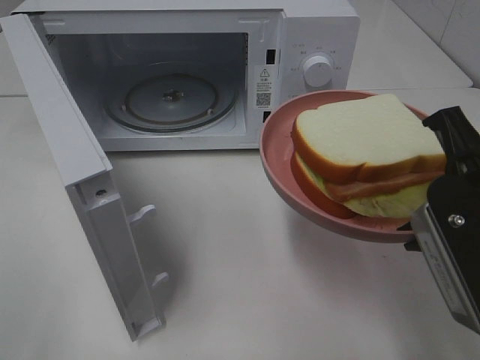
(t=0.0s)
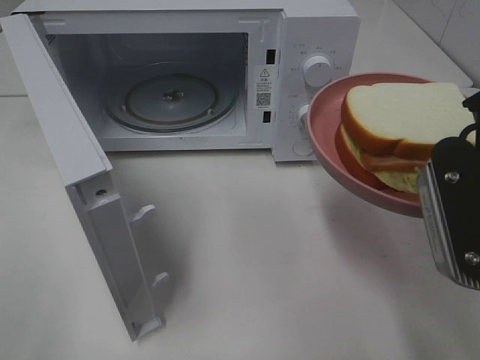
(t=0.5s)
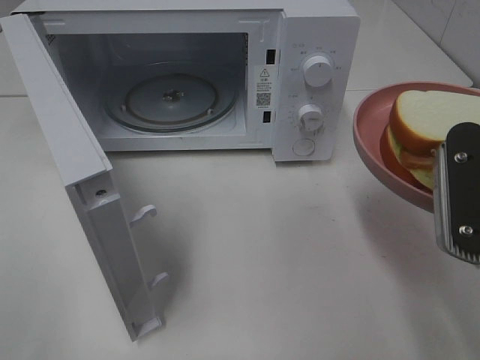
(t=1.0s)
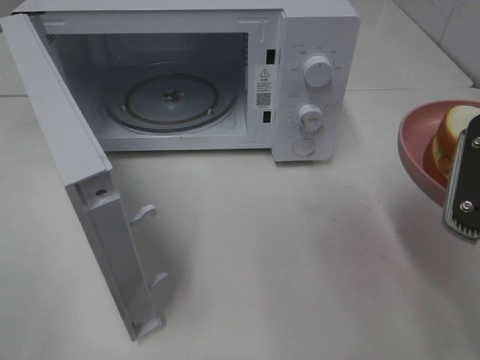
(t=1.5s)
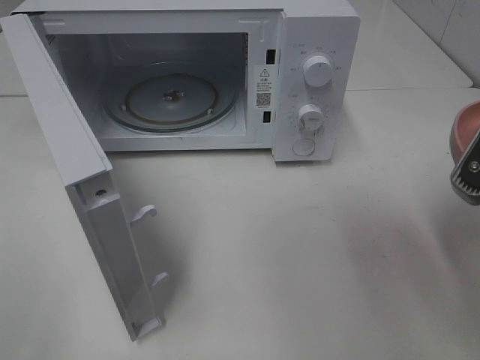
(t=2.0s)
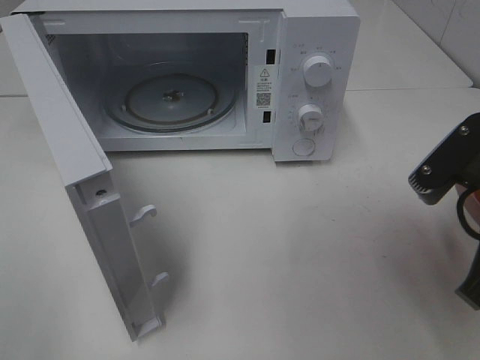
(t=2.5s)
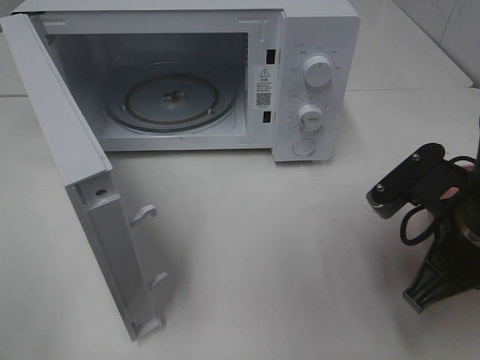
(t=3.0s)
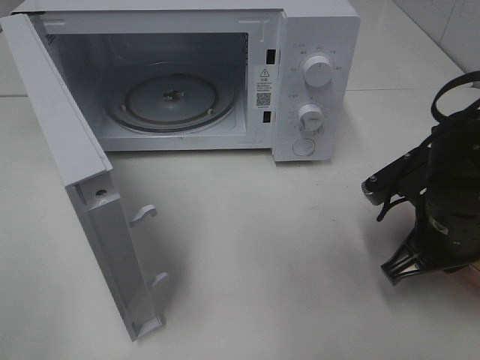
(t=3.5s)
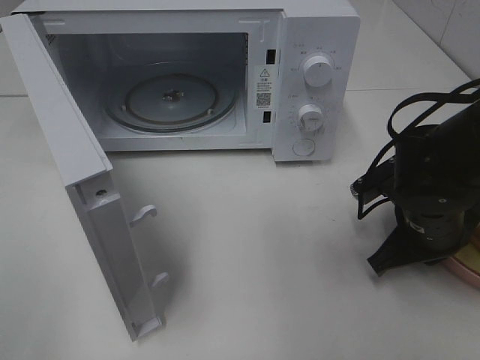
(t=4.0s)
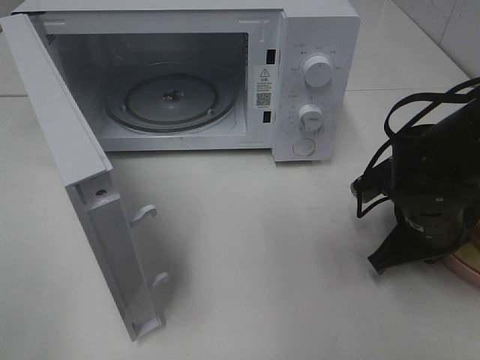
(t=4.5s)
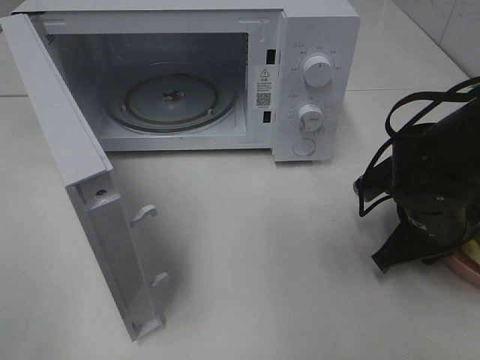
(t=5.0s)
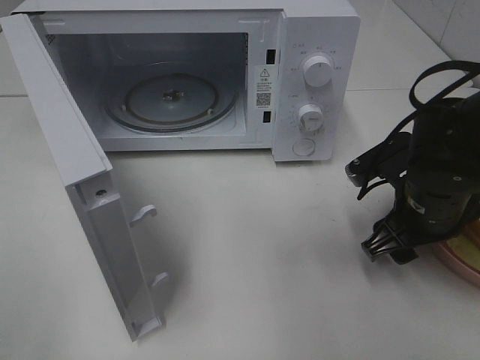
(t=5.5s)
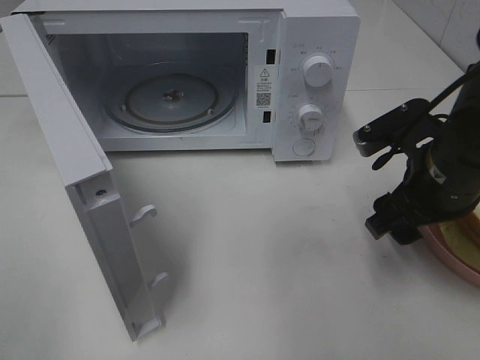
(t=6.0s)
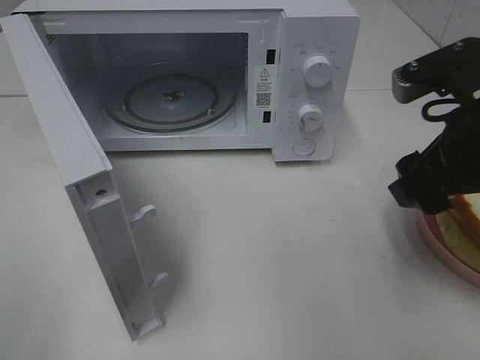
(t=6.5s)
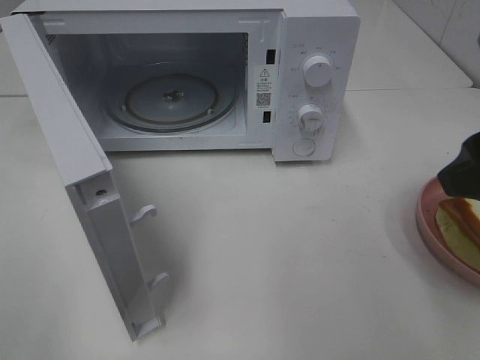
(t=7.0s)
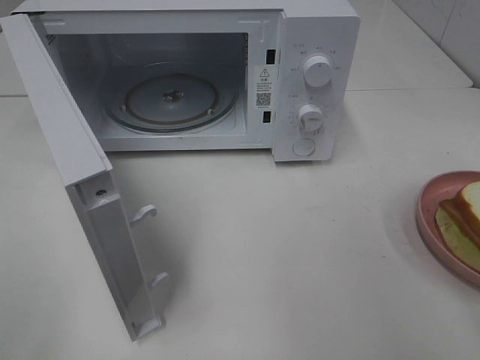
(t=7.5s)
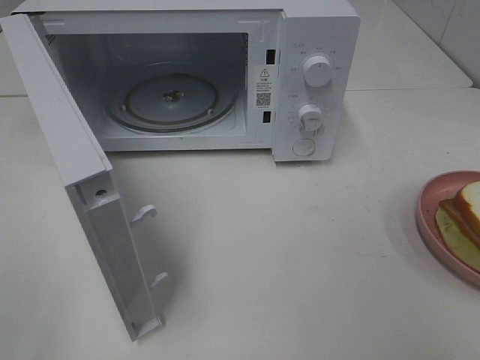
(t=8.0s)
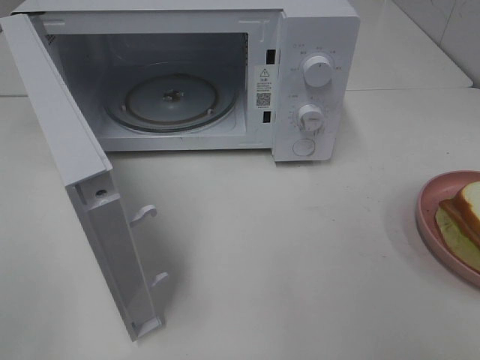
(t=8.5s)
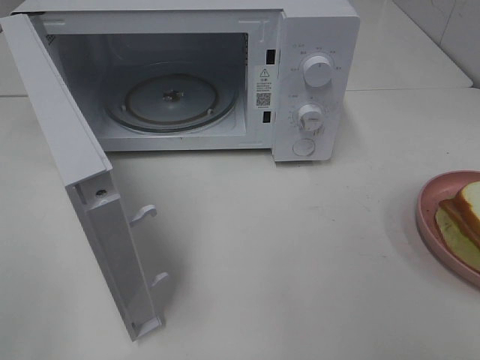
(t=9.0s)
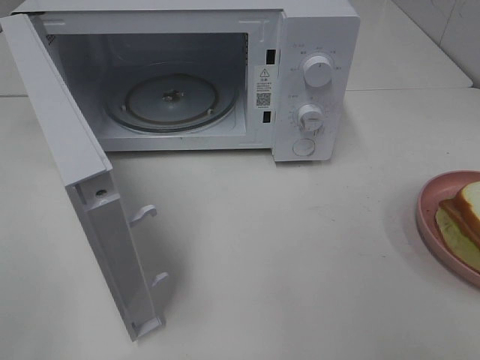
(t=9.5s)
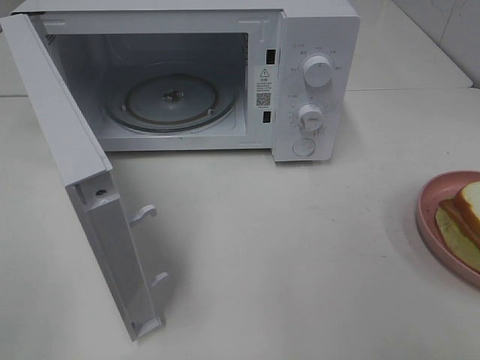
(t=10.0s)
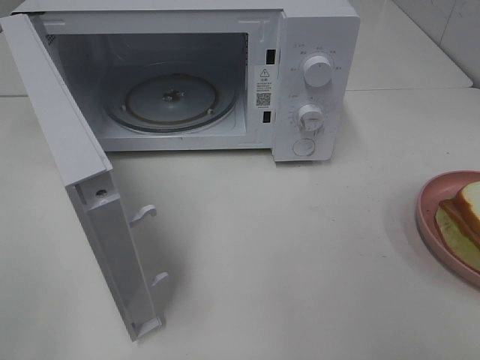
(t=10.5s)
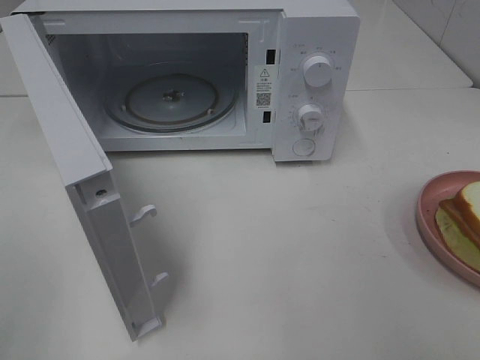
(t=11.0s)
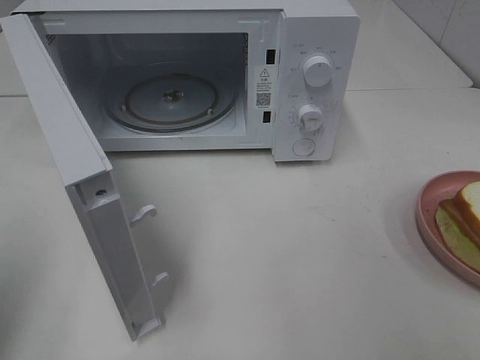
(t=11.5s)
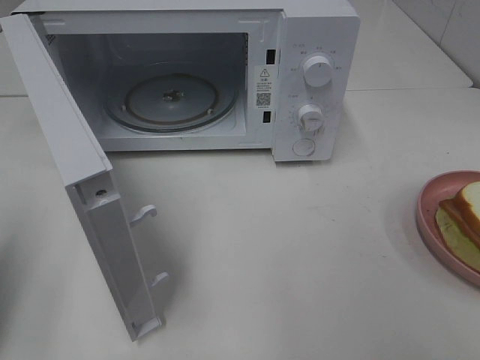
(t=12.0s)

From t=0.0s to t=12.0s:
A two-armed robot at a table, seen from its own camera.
Task of the whole recording: Heat Sandwich.
Step, from t=0.0s to t=8.5s: Right hand: place the plate on the table.
From t=2.0s to t=4.0s: The right gripper is displaced downward and forward by about 20 cm.
From t=4.0s to t=6.0s: The right gripper travels upward by about 10 cm, and opens up.
From t=6.0s to t=8.0s: The right gripper moves backward, upward and to the right, approximately 25 cm.
From t=10.0s to t=12.0s: The left gripper heads forward, covering approximately 15 cm, and closes its fingers.

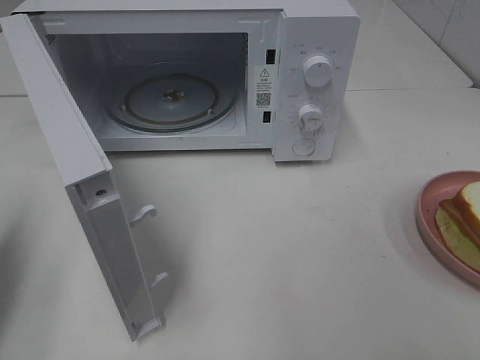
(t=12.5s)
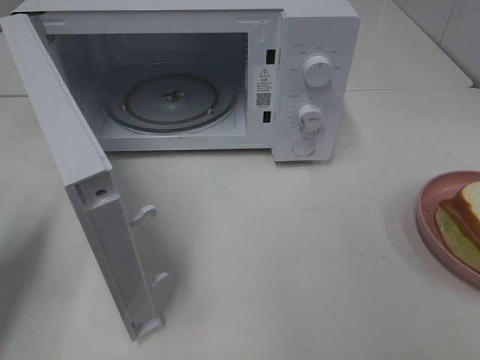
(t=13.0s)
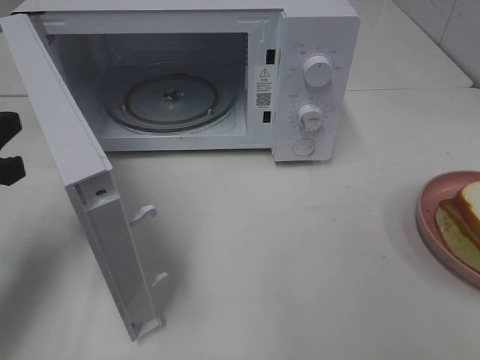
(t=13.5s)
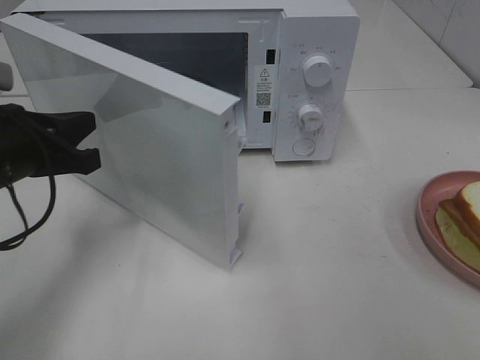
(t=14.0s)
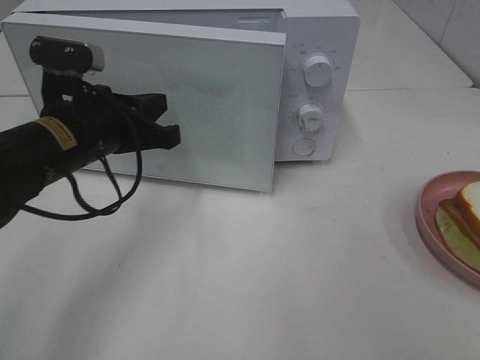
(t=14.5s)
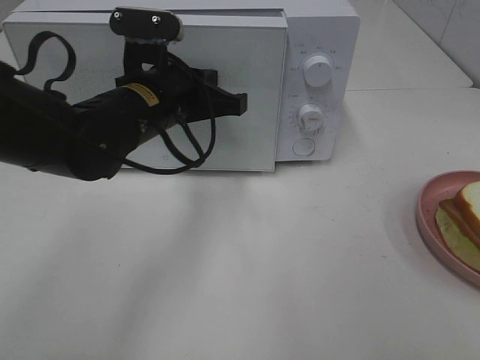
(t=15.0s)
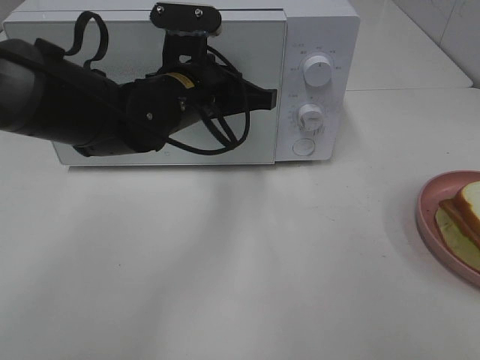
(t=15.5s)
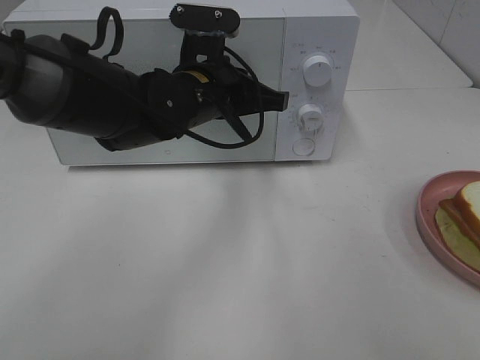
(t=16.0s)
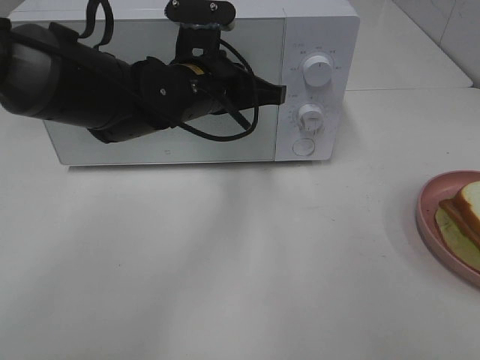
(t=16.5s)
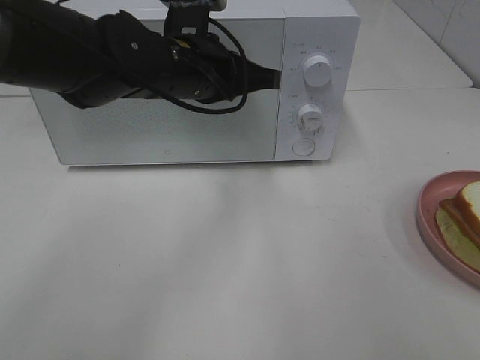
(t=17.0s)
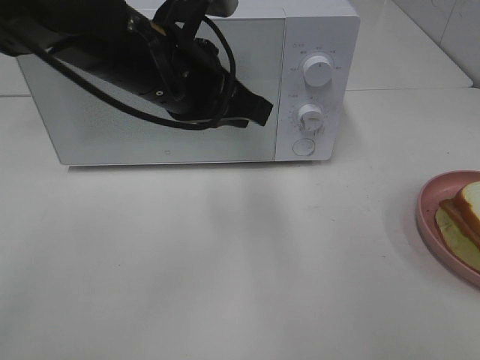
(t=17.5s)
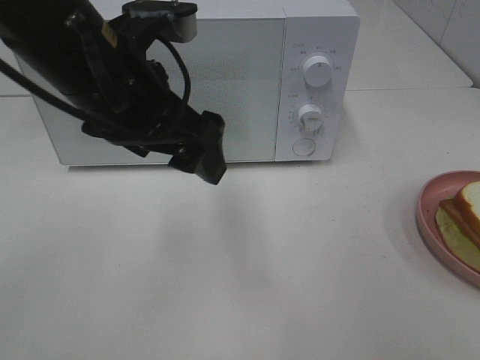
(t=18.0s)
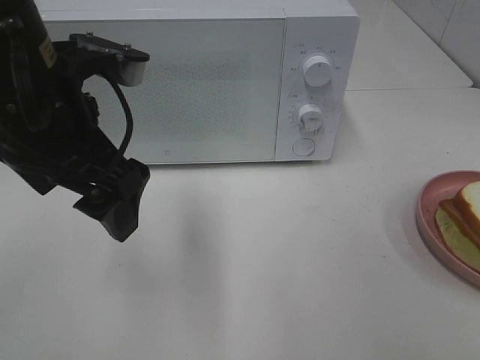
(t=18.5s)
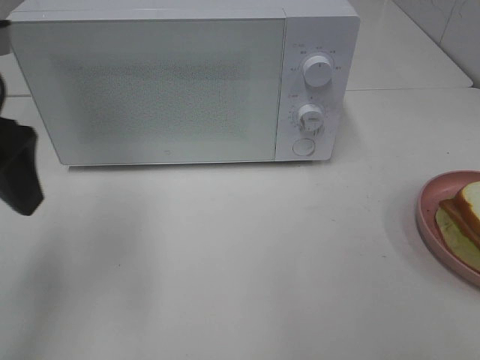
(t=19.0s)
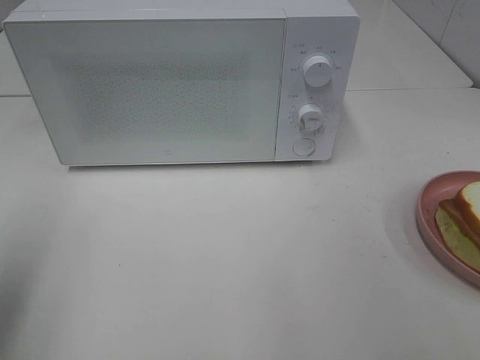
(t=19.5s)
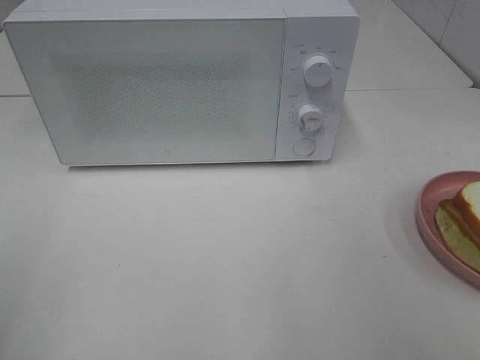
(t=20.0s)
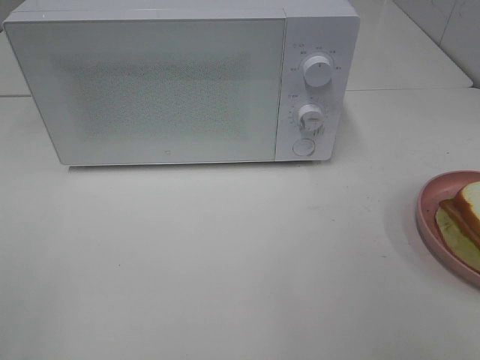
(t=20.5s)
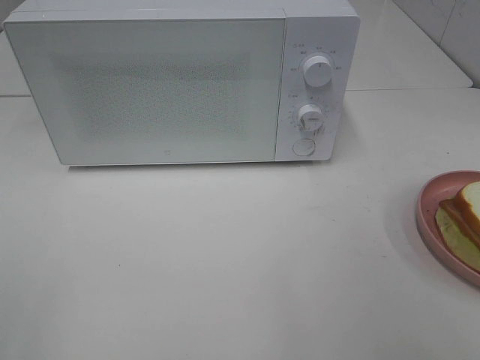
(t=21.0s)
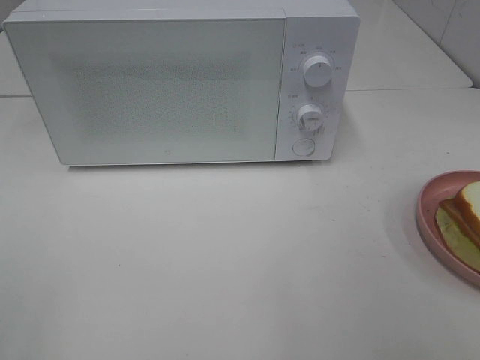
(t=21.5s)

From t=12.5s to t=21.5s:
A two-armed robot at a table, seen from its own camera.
Task of the whole recording: Heat Sandwich.
Step, from t=12.5s to t=16.5s: Left hand: close the microwave door.
From t=12.5s to t=14.5s: The left gripper is displaced to the right and forward by about 20 cm.
From t=14.5s to t=17.0s: The left gripper heads to the right and forward, covering approximately 10 cm.
From t=17.0s to t=19.5s: The left gripper travels to the left and backward by roughly 35 cm, and opens up.
From t=19.5s to t=21.5s: The left gripper is displaced backward by approximately 15 cm.
